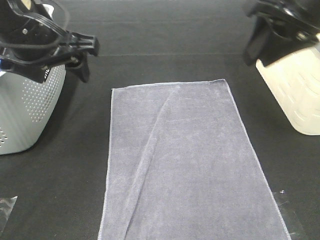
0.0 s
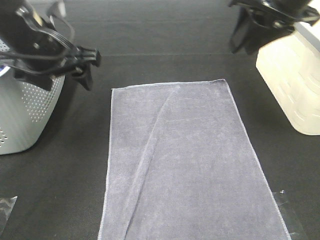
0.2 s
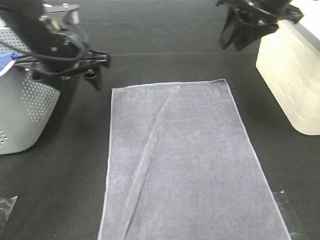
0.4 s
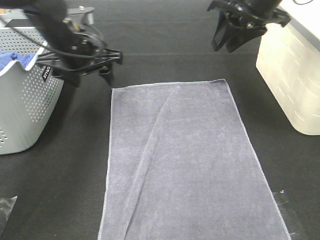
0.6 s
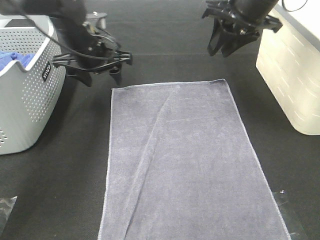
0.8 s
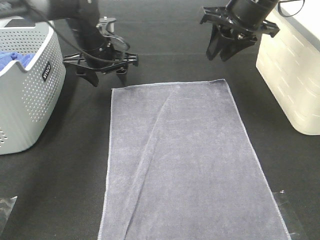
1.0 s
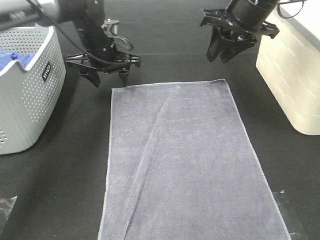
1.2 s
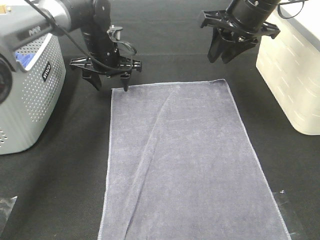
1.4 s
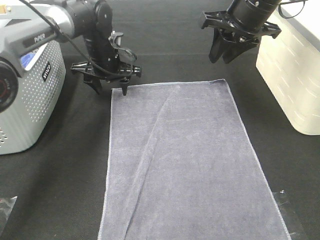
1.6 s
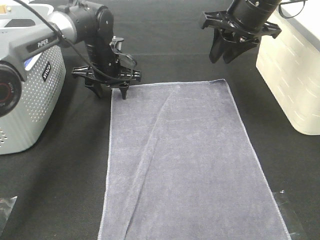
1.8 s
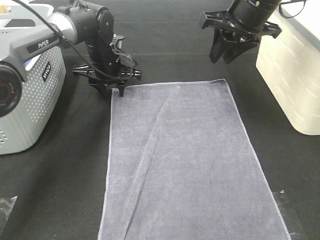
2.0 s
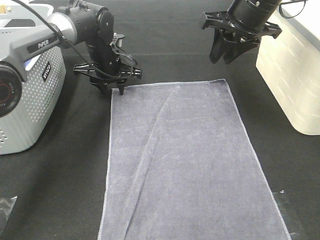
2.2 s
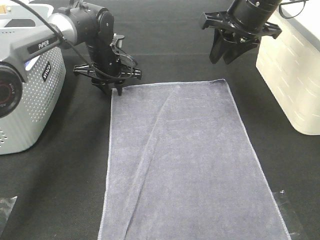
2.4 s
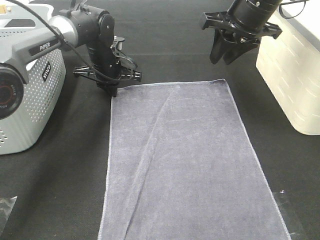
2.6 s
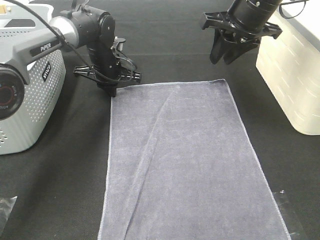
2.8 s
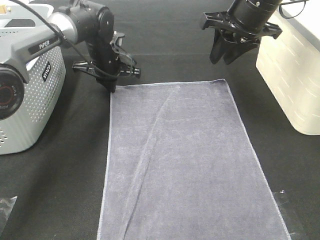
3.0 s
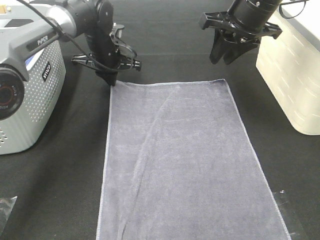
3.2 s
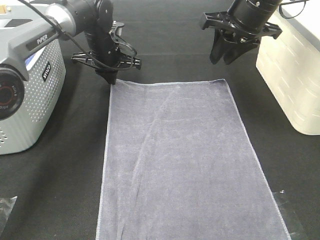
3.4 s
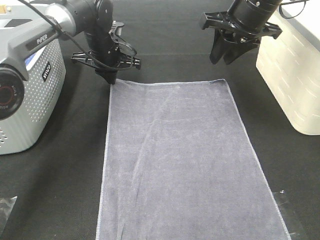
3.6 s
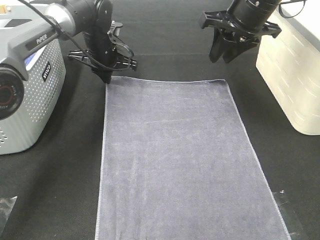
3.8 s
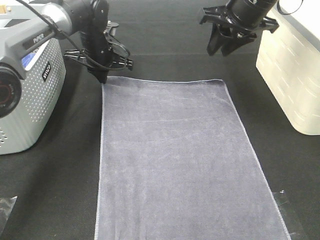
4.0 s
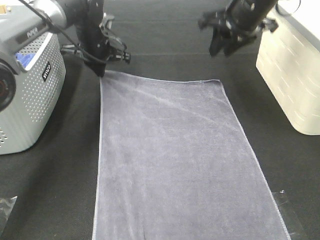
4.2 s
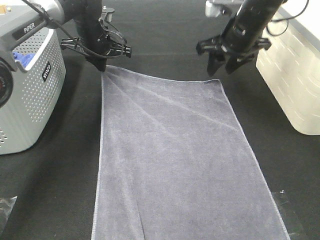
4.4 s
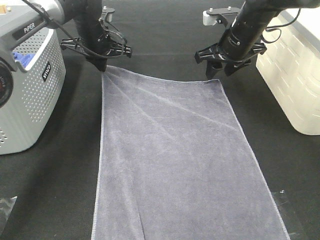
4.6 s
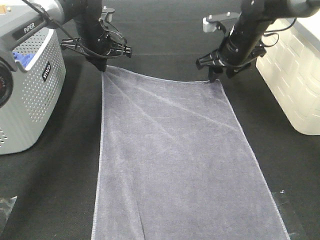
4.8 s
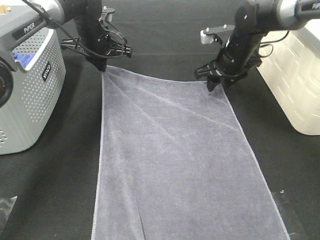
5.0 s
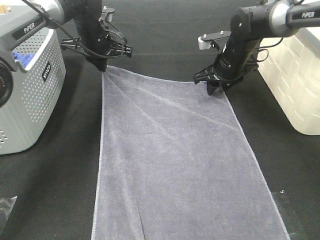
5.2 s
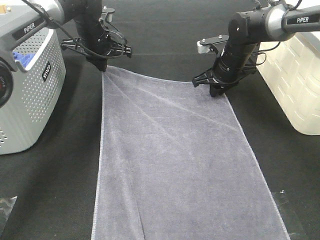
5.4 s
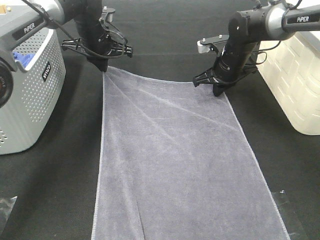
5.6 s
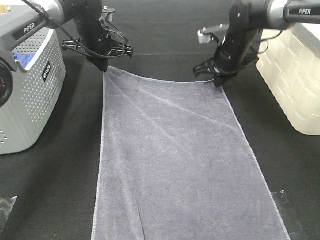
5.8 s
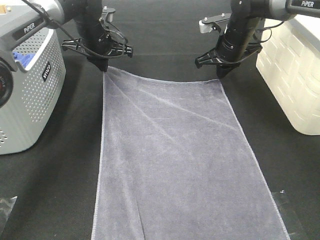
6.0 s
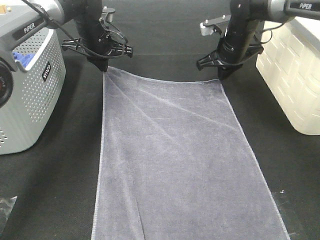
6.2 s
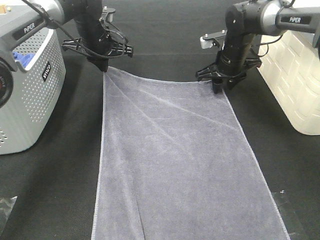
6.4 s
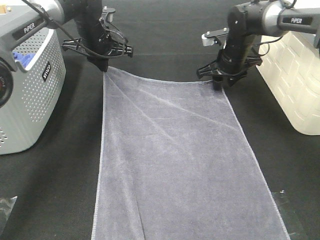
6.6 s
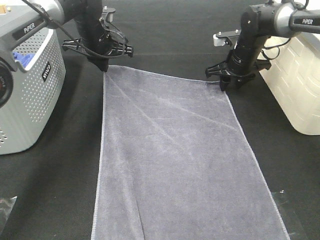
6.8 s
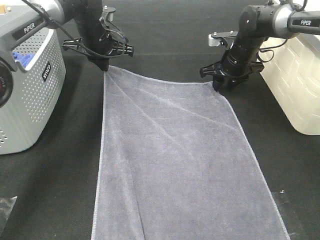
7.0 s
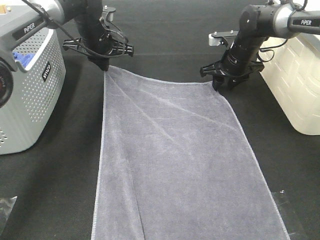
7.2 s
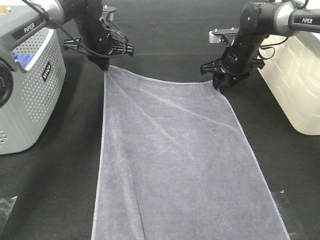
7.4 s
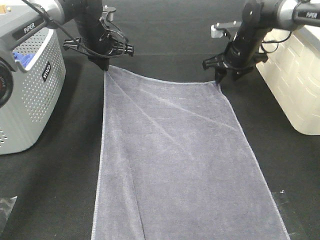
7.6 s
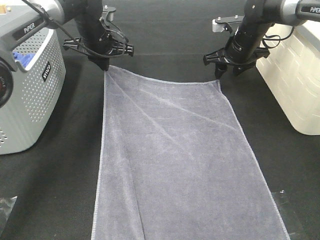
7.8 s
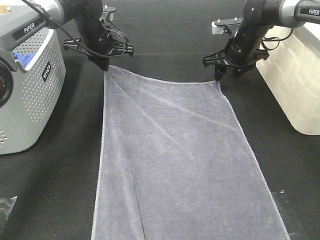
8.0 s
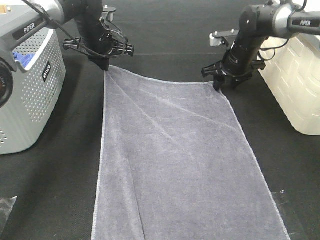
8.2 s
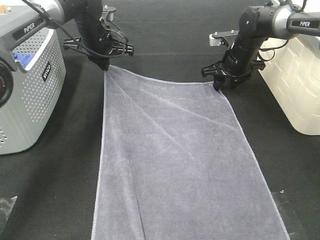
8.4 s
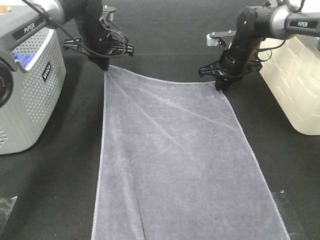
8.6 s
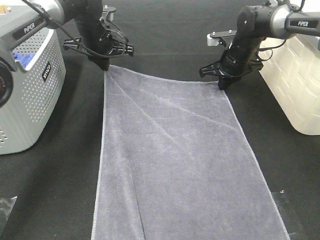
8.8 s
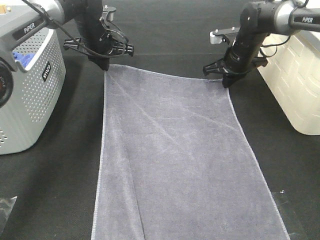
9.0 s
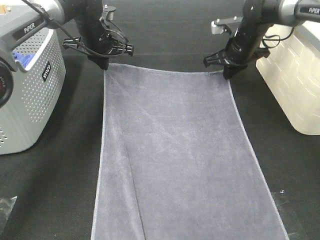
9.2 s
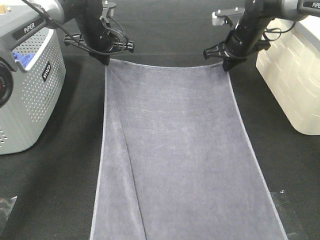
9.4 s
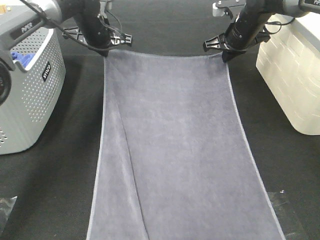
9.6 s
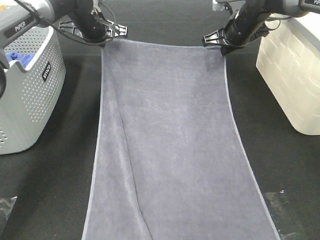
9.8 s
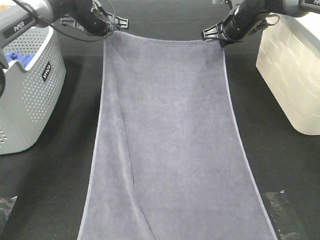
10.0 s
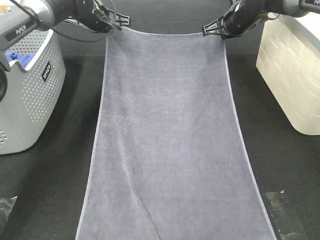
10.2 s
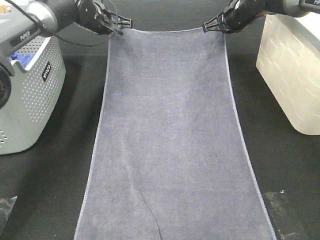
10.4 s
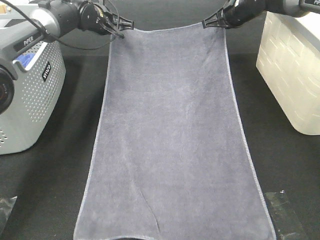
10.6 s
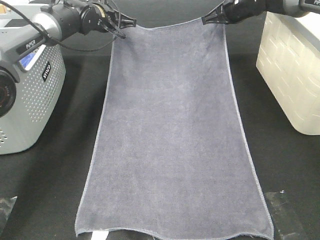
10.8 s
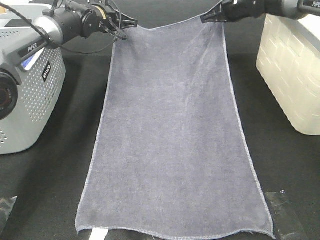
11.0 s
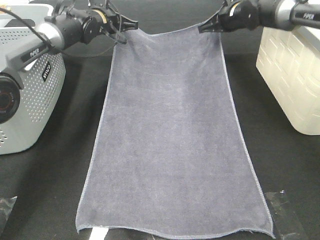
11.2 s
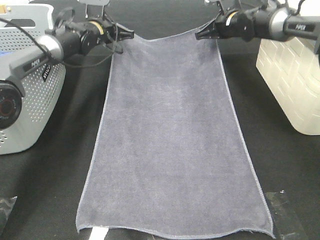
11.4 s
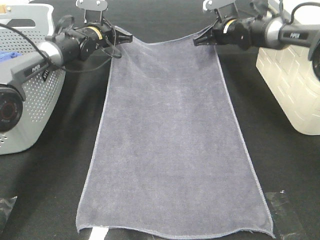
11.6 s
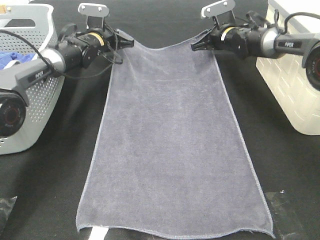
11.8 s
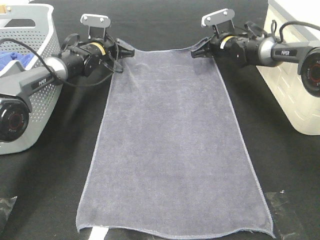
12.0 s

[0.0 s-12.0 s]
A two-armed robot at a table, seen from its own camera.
Task of the whole recording: Remove the towel and place it.
Step, 0.0 to 5.4 s: Left hand:adjust the gray towel.
Step, 0.0 to 5.4 s: Right hand:adjust the gray towel.
0.0 to 1.6 s: The left gripper is displaced forward and downward by roughly 25 cm, while the right gripper shifts roughly 10 cm forward and downward.
1.6 to 3.0 s: The left gripper closes its fingers.
3.0 to 4.4 s: The right gripper travels downward by about 5 cm.
4.4 to 6.0 s: The right gripper moves forward, approximately 5 cm, and closes.
6.0 to 7.6 s: The right gripper opens up.
7.6 to 9.0 s: The right gripper closes.
9.0 to 10.4 s: The left gripper moves forward, roughly 5 cm; the right gripper is displaced upward by roughly 5 cm.
10.4 to 12.0 s: Both grippers move downward, some 10 cm.

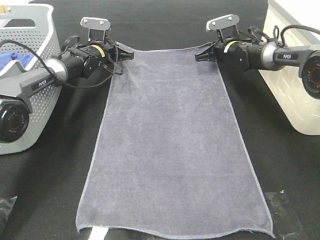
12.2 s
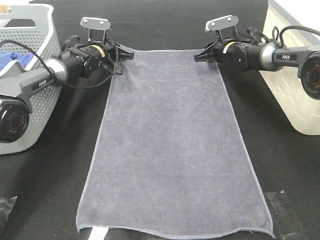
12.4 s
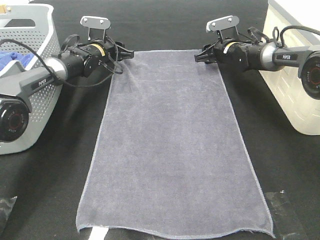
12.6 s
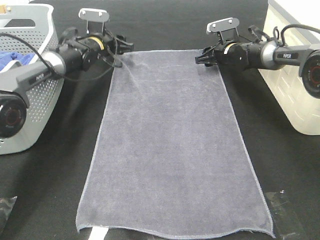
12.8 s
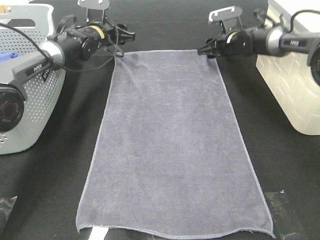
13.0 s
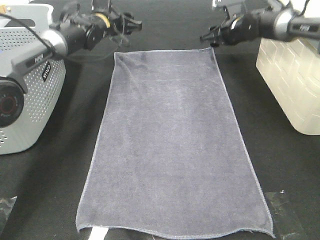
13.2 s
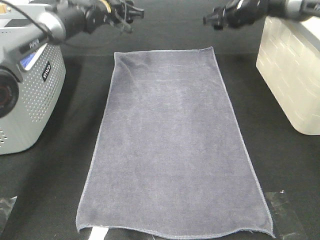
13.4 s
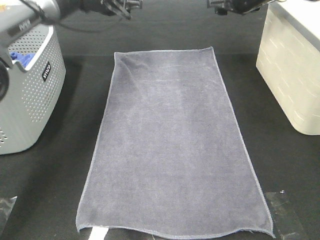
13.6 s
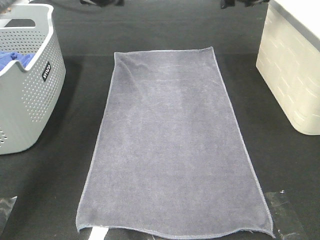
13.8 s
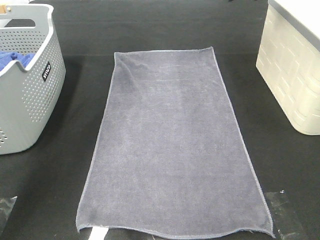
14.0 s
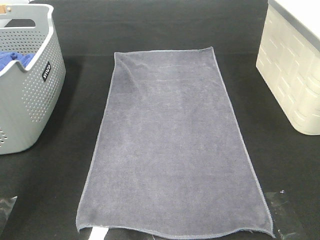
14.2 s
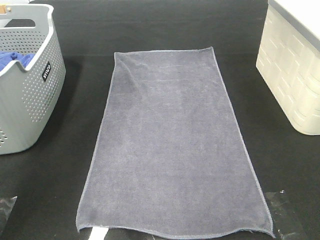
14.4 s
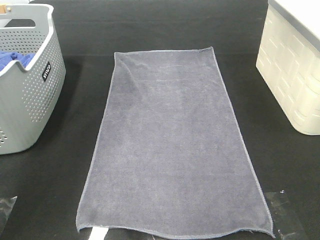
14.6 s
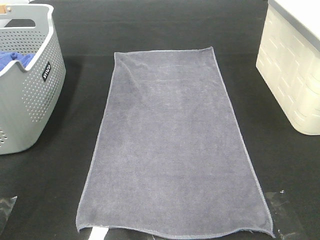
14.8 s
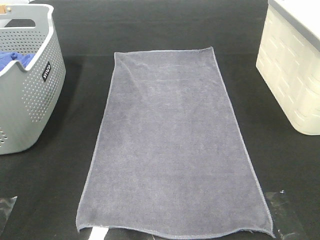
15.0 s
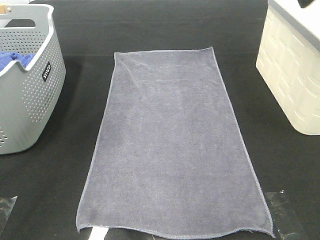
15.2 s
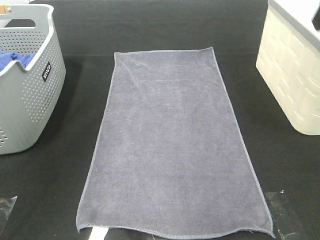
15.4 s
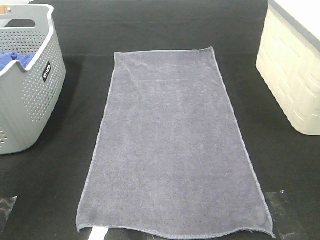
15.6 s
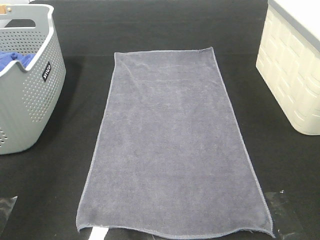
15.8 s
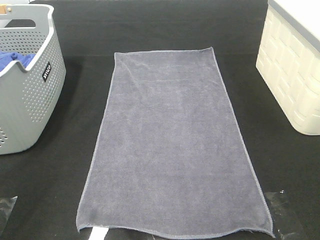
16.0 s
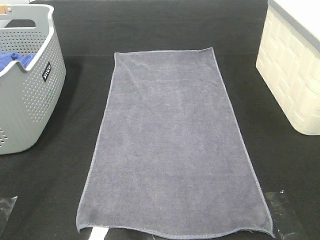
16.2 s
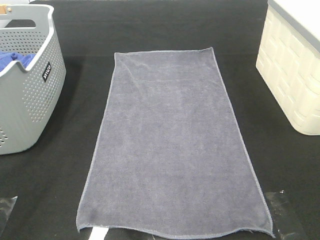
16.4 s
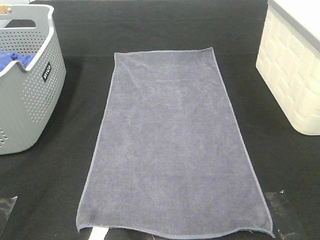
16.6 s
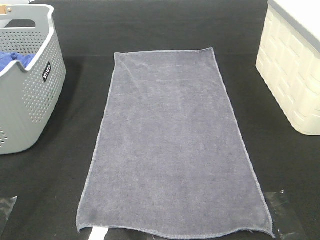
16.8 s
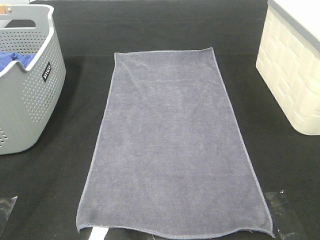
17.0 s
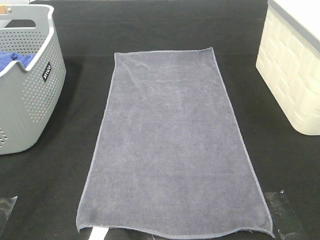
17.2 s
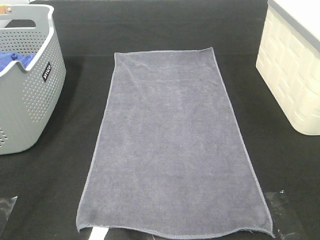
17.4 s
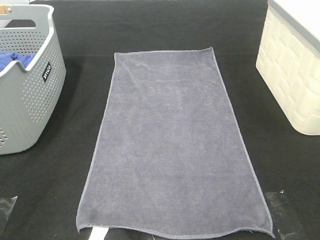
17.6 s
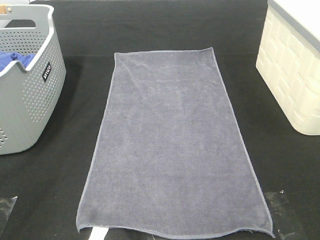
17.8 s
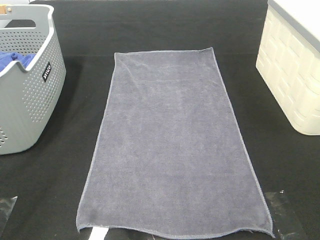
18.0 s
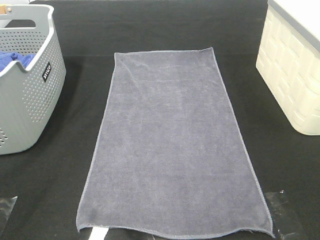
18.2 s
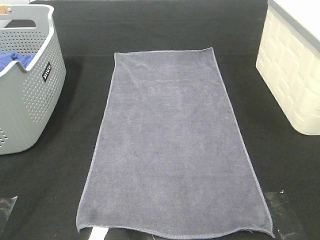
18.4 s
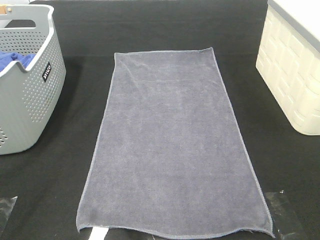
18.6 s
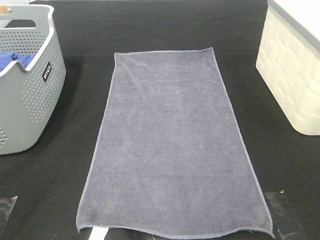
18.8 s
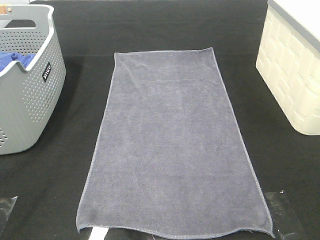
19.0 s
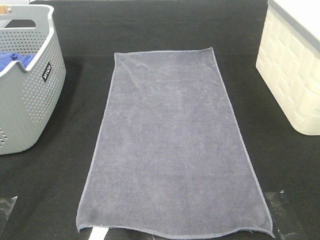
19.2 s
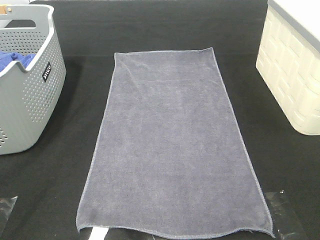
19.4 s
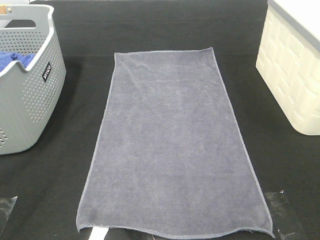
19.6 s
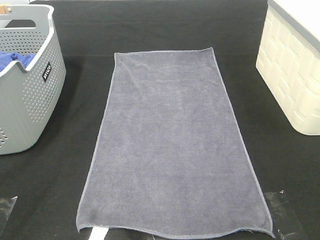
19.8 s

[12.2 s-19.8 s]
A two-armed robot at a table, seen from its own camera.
Task of the whole recording: Remove the towel and place it.
12.2 to 13.8 s: Both grippers travel together upward, some 20 cm. The right gripper opens its fingers; the left gripper opens.
13.8 to 15.2 s: Both grippers travel together backward and upward, about 30 cm.
15.2 to 16.8 s: Both grippers move backward and downward, approximately 30 cm.

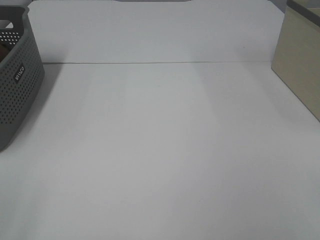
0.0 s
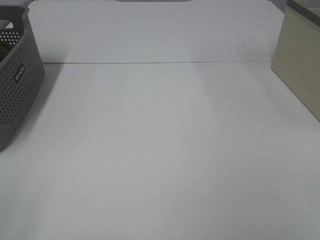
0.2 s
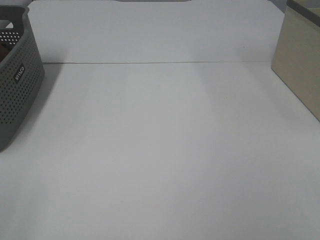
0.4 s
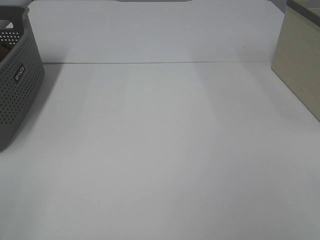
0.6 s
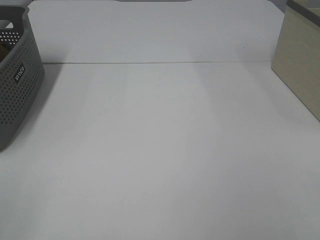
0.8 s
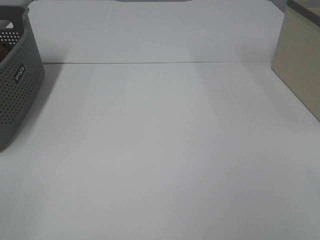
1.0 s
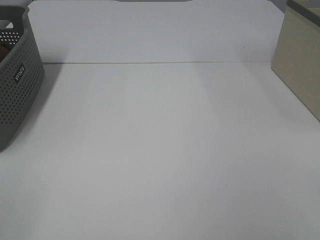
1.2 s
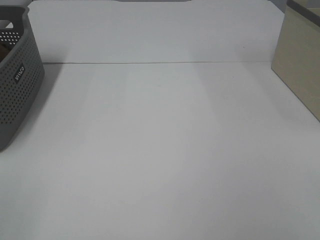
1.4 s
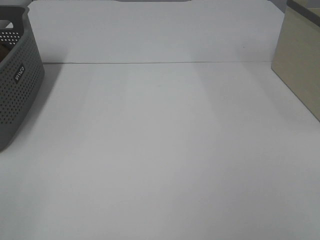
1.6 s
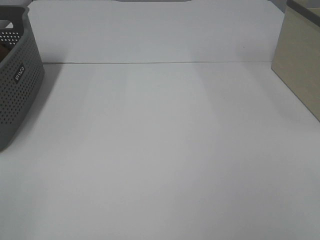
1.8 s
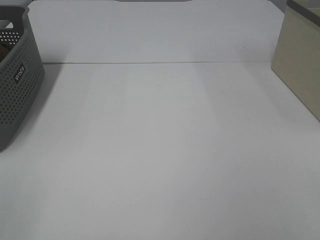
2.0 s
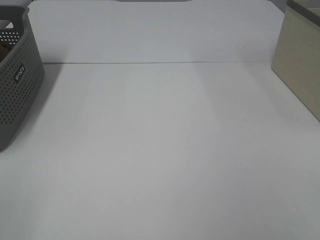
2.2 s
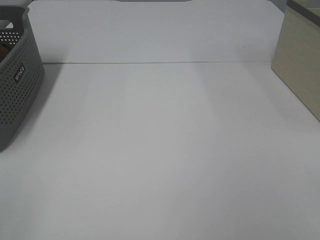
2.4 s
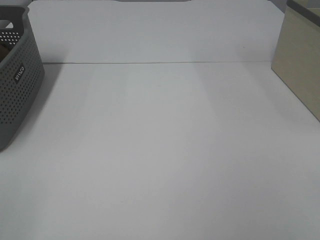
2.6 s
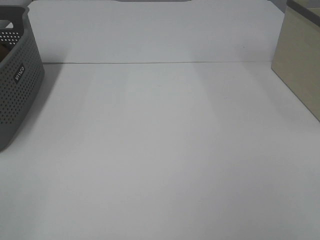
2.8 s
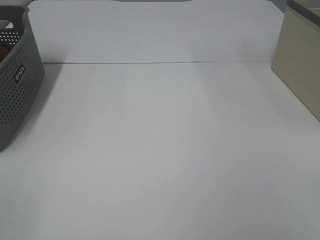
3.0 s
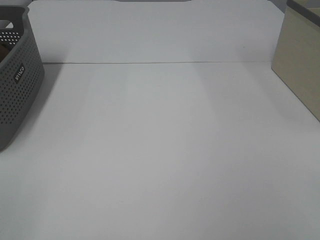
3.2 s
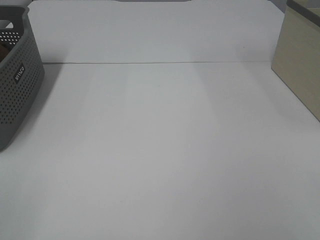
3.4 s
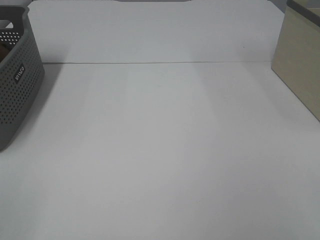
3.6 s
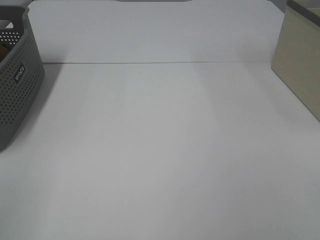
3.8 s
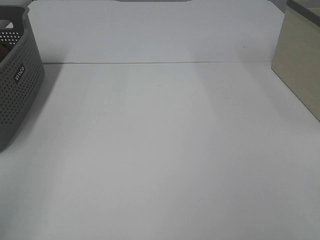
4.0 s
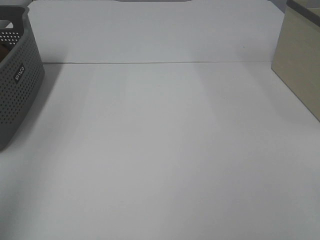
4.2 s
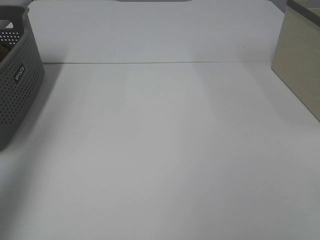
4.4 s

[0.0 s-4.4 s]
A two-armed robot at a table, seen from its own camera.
Task of the whole recording: Remove the towel and place it.
0.0 to 3.0 s: Both grippers stay put.
3.0 to 4.4 s: The left gripper heads forward and upward, covering some 25 cm.
